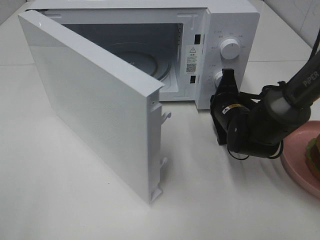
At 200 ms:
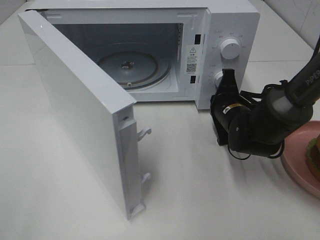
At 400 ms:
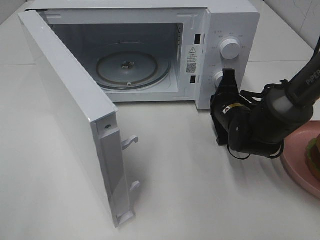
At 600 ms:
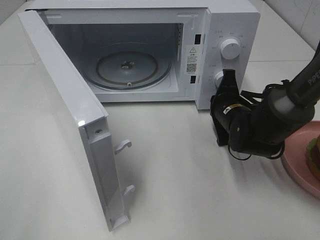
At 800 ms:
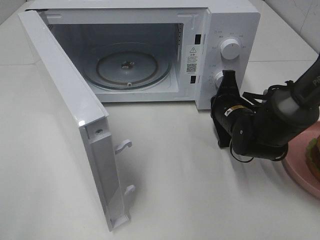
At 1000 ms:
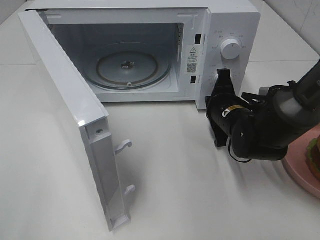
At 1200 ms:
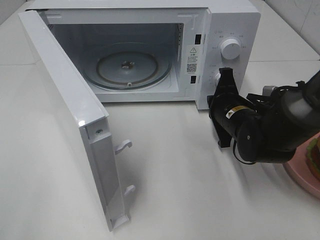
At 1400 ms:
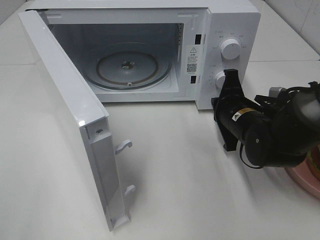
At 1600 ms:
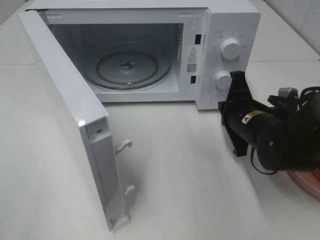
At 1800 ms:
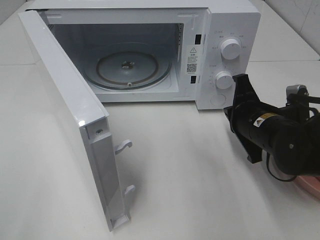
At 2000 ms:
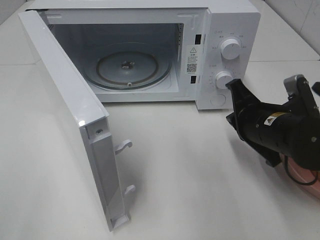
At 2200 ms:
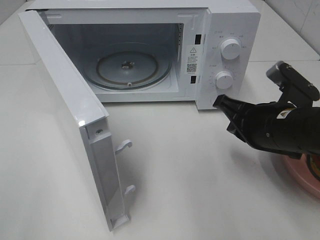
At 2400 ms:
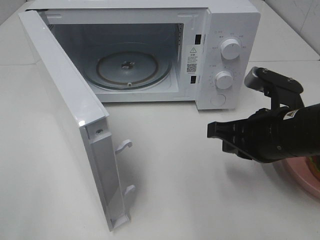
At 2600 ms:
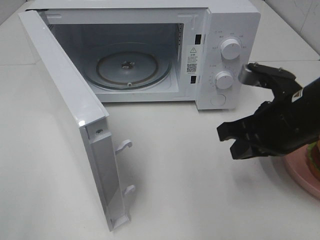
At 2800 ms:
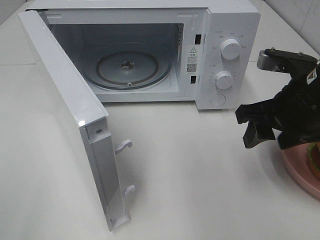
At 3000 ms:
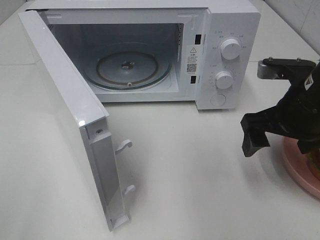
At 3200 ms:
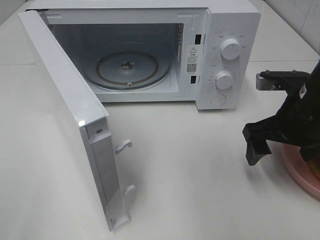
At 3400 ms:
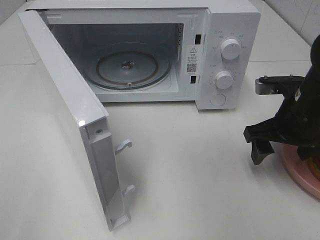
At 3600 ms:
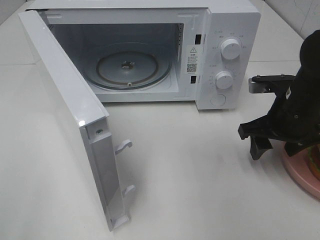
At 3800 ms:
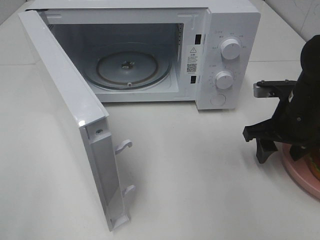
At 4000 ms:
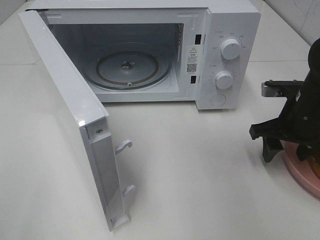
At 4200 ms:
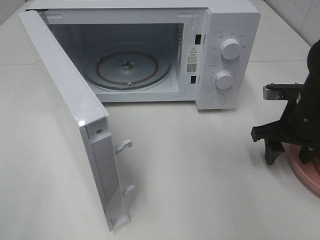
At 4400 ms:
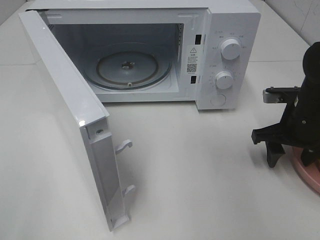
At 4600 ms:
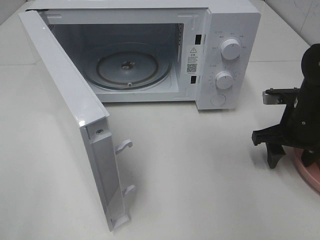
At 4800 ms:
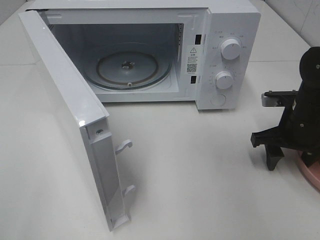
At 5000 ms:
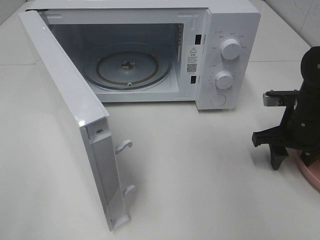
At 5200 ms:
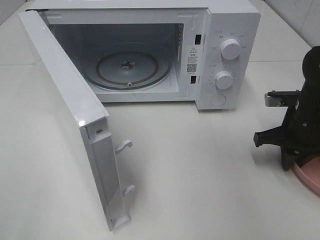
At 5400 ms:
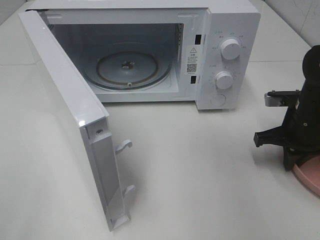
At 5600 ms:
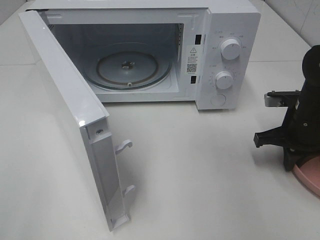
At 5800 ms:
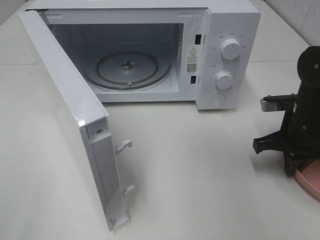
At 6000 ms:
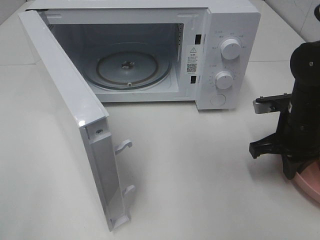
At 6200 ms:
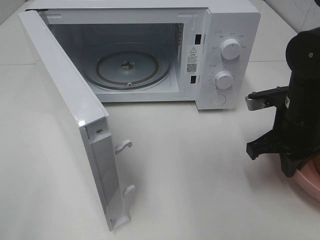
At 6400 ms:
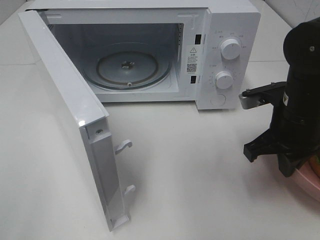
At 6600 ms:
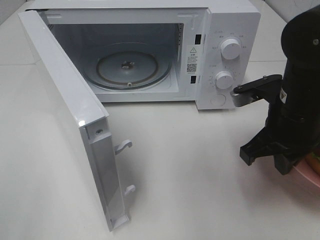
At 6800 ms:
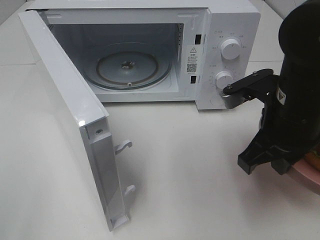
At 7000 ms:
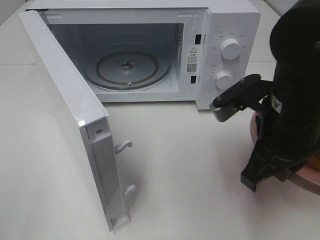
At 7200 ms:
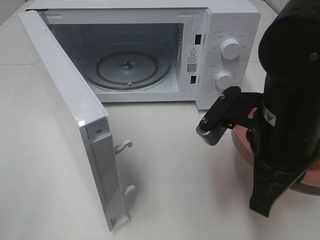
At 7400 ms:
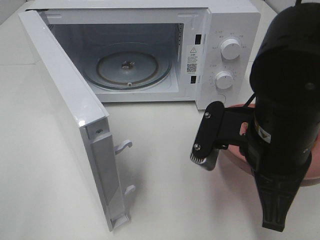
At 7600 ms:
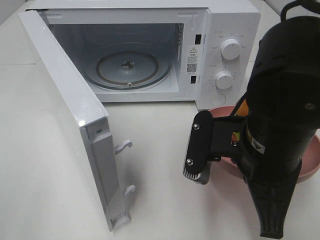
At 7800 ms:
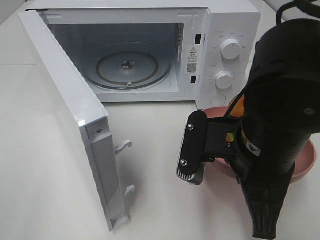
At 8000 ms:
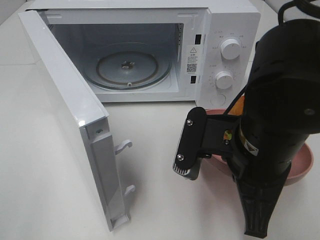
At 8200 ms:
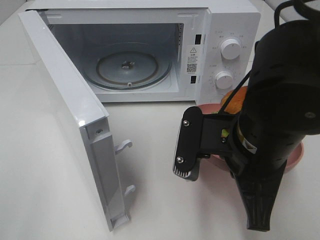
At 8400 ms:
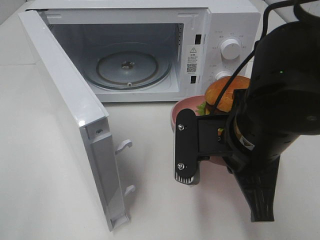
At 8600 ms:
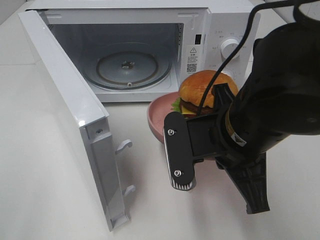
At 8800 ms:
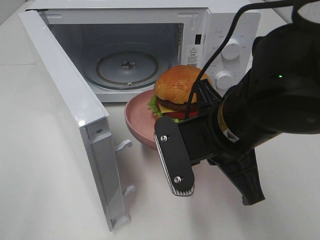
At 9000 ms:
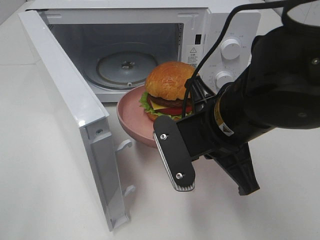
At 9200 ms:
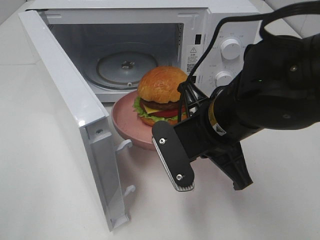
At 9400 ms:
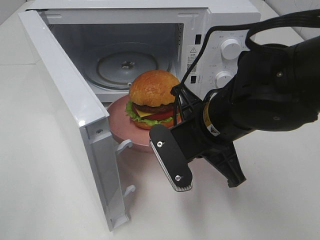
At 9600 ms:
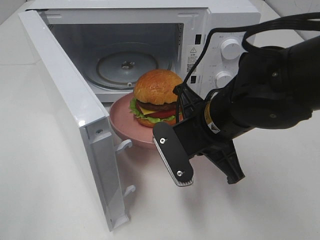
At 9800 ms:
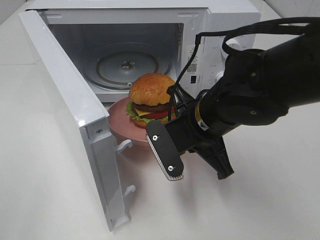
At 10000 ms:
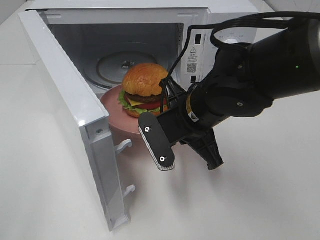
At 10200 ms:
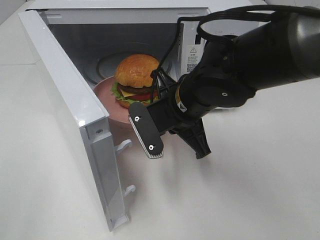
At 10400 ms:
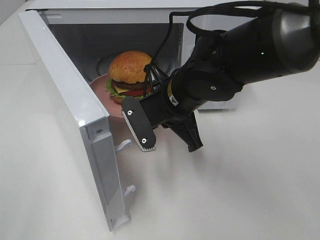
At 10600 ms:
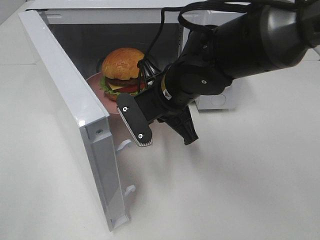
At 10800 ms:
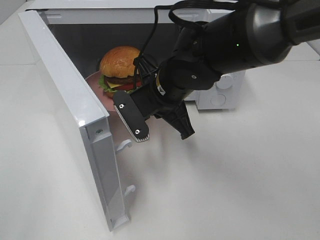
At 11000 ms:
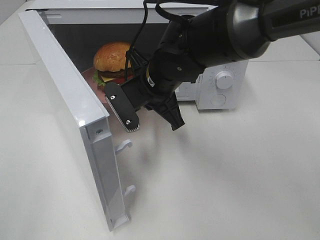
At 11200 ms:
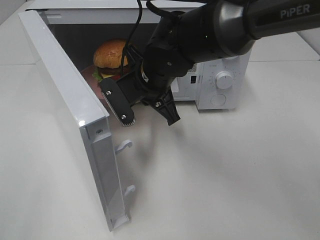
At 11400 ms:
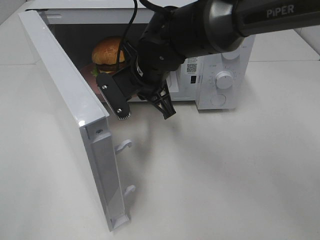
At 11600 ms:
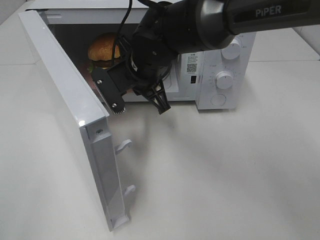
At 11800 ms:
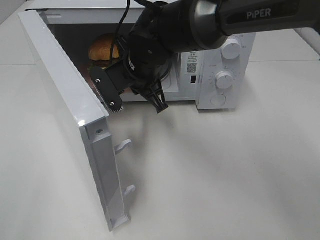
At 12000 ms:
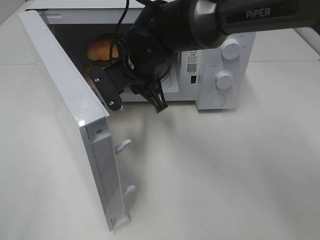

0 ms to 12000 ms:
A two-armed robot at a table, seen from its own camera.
Task of the whole recording: Heat the burger.
Step, 1200 ms to 5200 ms: Right hand: grab the plate with the hamburger.
0 ms to 1600 ms: The right gripper travels backward by roughly 5 cm.
1600 ms to 3000 ms: The right gripper shifts about 10 cm upward, and opens.
3000 ms to 4400 ms: The right gripper moves downward and forward, about 10 cm.
4400 ms to 6000 ms: The right gripper closes.
6000 ms to 7600 ms: The right gripper moves backward, to the left and upward, about 20 cm.
9000 ms to 10400 ms: The right gripper goes roughly 10 cm forward and to the left.
10400 ms to 12000 ms: The right gripper travels forward and to the left by some 10 cm.

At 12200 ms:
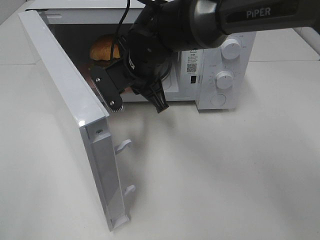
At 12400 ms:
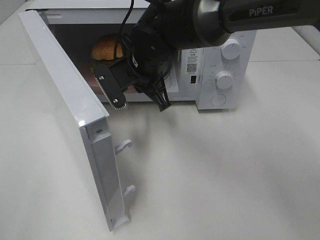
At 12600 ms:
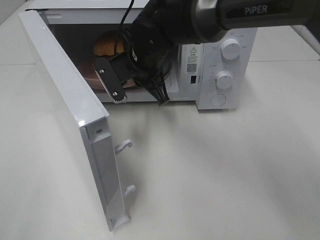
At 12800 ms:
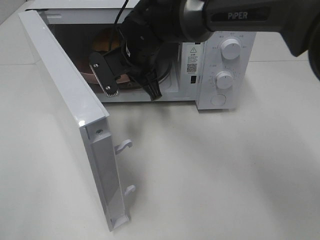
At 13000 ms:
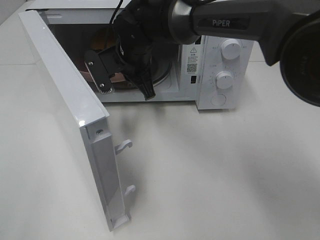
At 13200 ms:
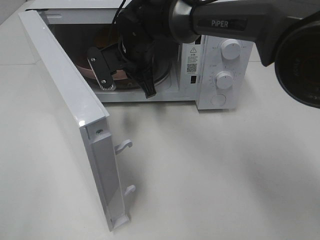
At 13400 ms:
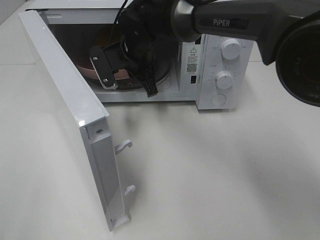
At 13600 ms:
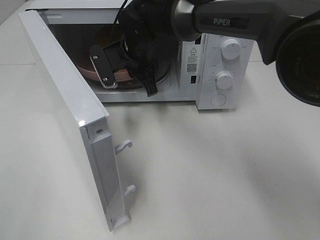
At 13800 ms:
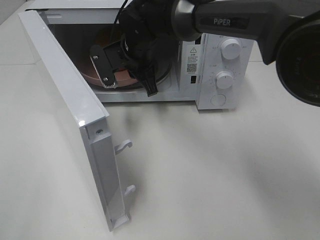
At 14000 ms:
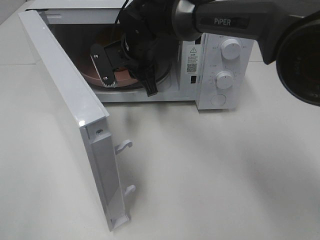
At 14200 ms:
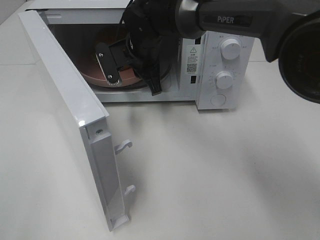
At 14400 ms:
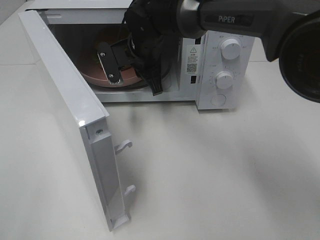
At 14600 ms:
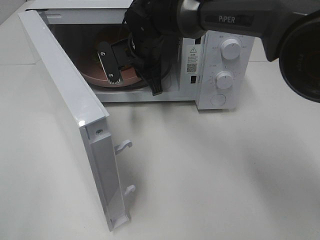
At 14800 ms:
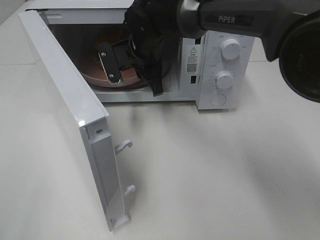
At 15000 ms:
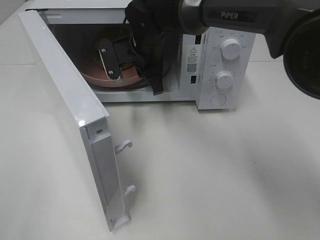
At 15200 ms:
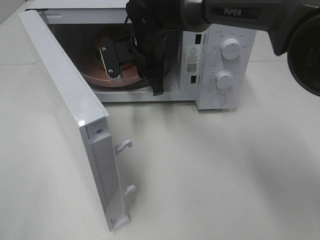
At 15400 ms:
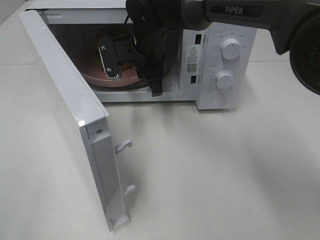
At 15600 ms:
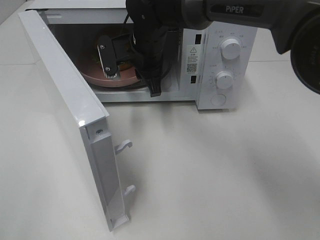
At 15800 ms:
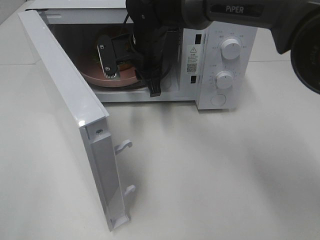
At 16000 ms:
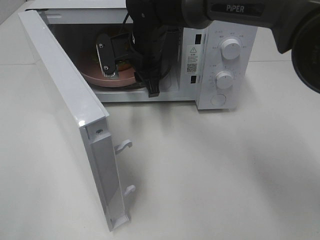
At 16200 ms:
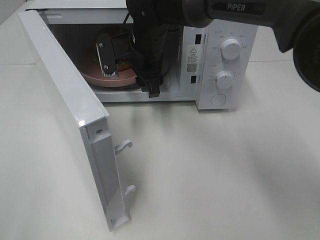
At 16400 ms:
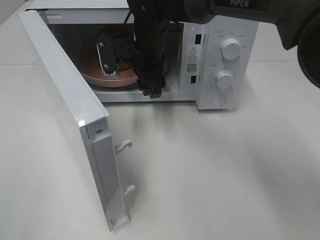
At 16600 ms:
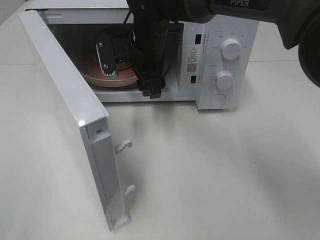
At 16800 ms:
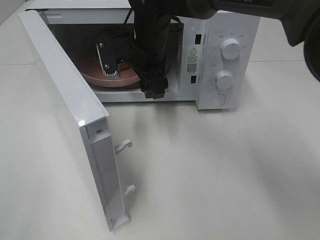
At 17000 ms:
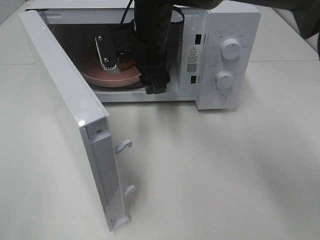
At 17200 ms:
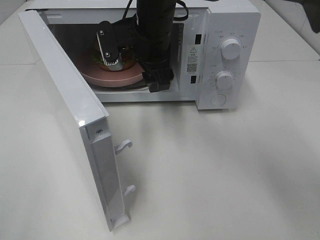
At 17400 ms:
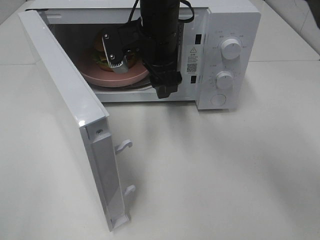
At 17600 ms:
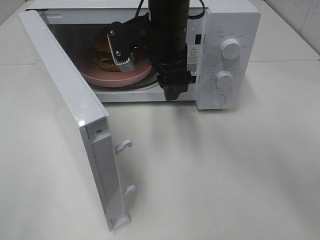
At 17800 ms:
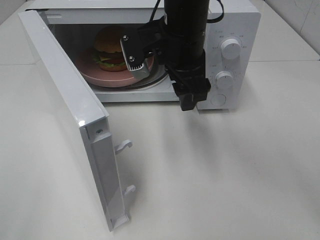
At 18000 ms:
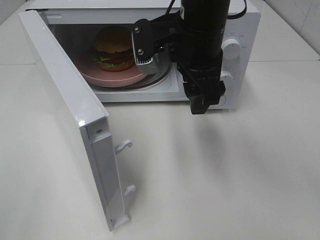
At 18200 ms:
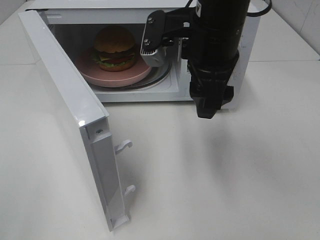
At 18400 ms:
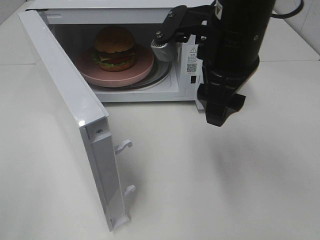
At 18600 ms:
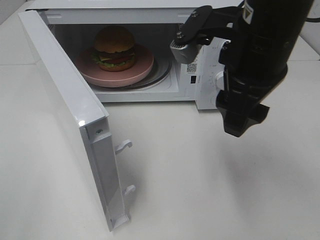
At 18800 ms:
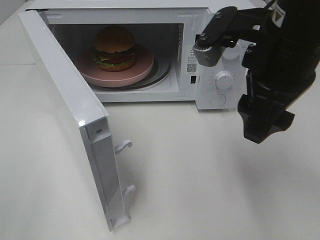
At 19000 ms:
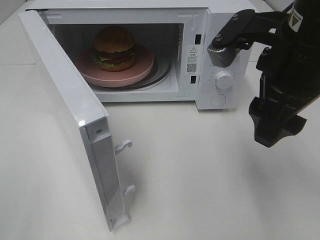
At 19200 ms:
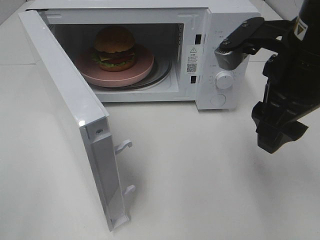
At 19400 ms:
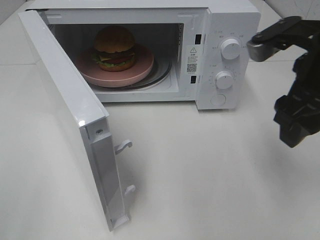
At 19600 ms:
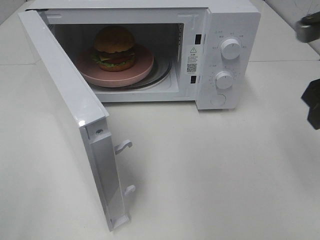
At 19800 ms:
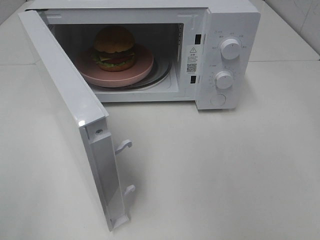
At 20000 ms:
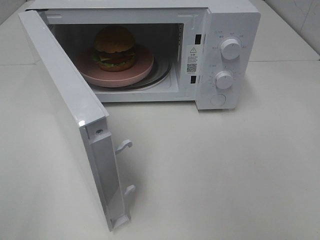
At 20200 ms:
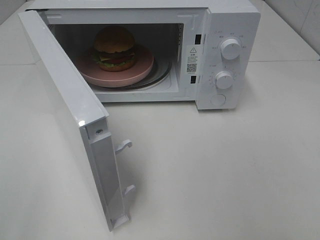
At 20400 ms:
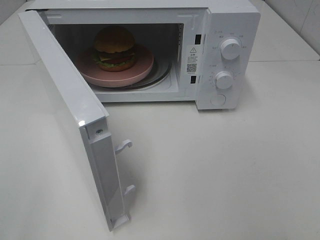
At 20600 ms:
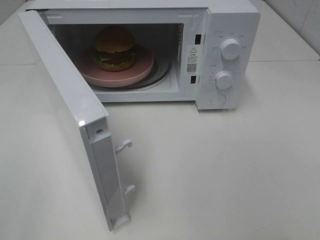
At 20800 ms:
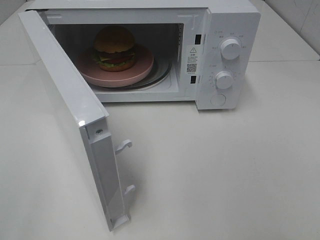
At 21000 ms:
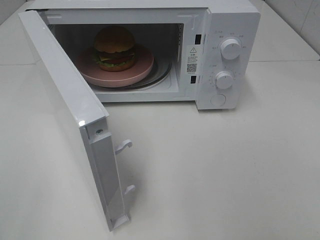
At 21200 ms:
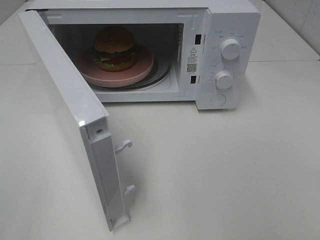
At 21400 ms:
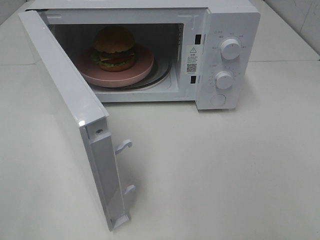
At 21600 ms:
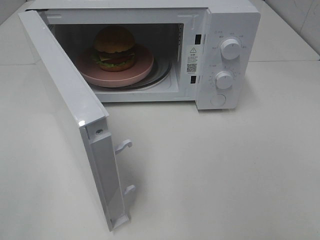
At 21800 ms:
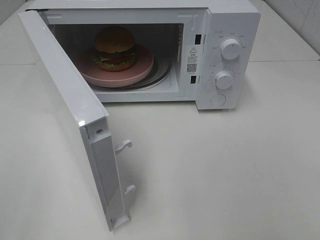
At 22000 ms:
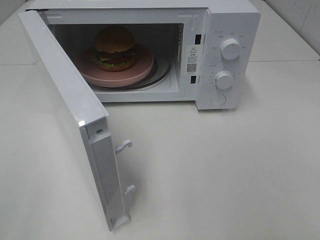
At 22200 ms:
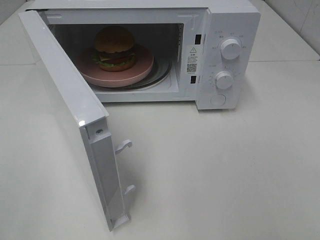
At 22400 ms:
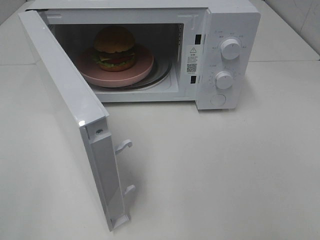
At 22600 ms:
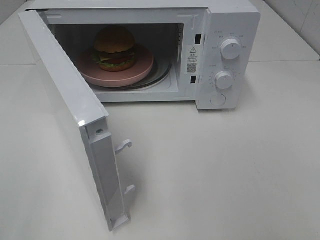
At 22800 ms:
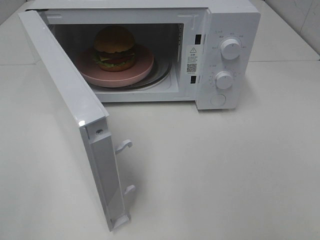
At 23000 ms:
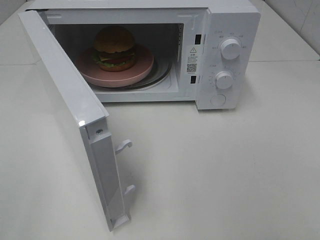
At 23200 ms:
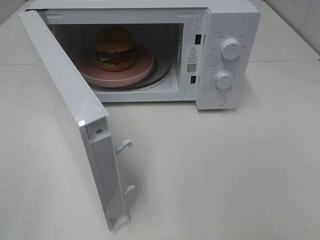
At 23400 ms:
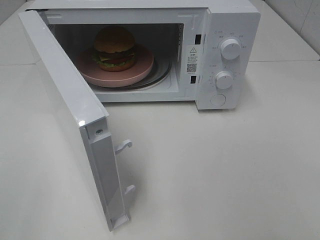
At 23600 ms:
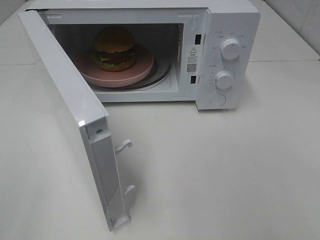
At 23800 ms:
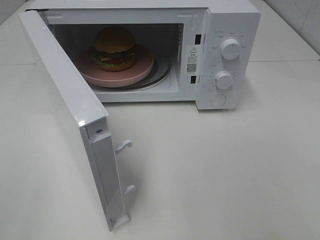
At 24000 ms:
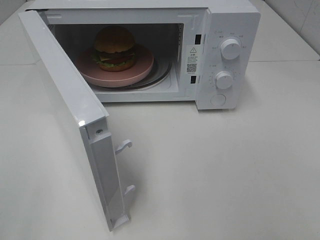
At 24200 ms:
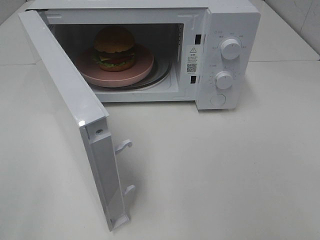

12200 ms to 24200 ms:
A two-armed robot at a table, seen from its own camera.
Task of the whole recording: Heat the burger.
12200 ms to 13800 ms: The right gripper is displaced forward by approximately 5 cm.
13800 ms to 15200 ms: The grippers stay close to where they were, moving slightly.
15200 ms to 16600 ms: The right gripper opens.
16600 ms to 18200 ms: The right gripper shifts approximately 15 cm backward, to the right and upward.
18200 ms to 19800 ms: The right gripper moves to the right, some 25 cm.
21200 ms to 24200 ms: Both grippers stay put.
